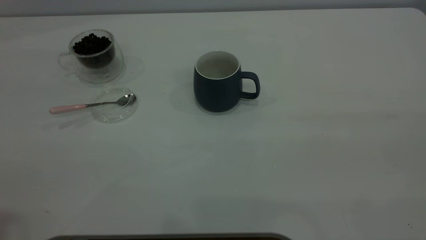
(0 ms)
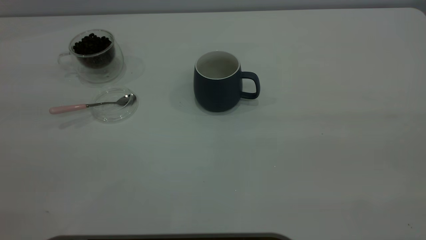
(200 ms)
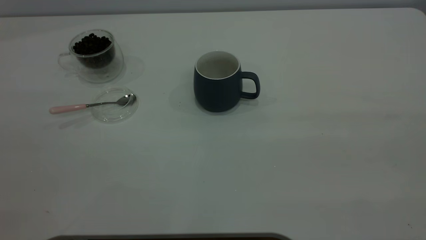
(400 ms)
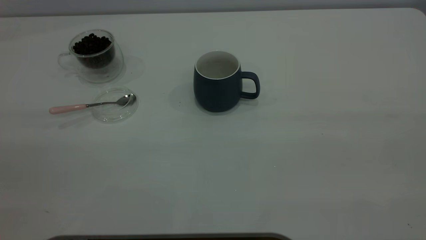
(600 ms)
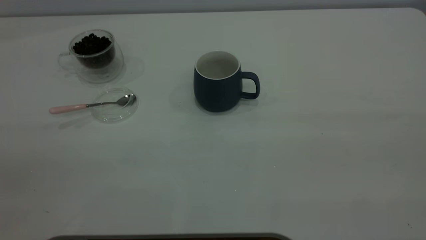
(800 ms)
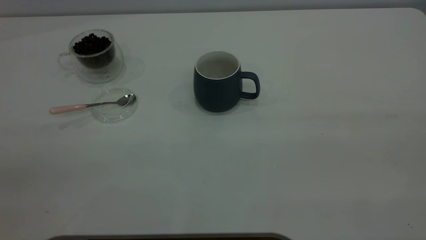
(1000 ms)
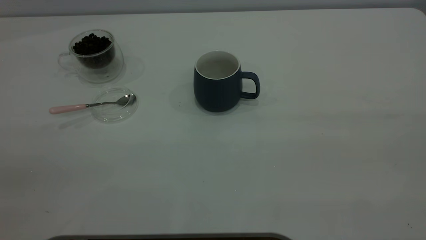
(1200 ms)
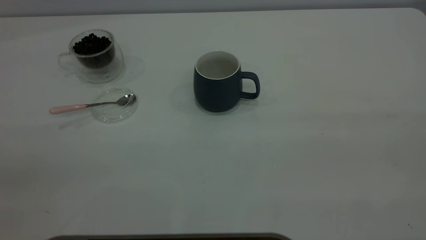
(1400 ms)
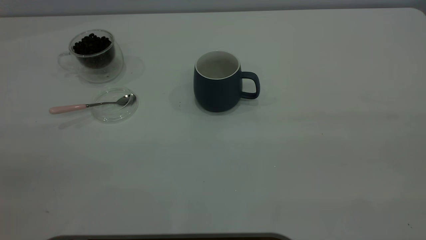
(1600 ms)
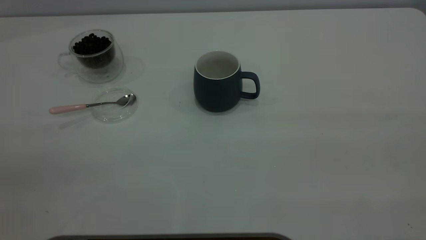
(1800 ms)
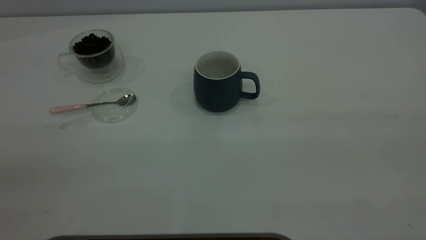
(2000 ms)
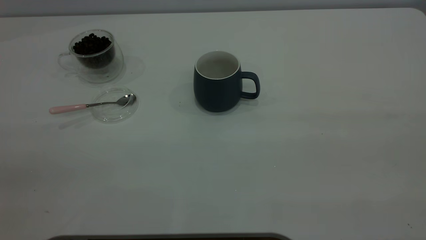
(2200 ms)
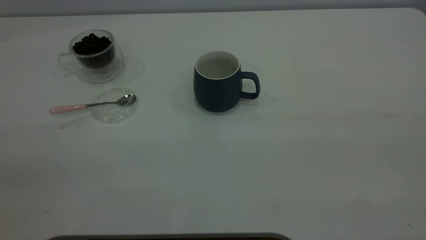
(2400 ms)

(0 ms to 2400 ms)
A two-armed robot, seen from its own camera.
Task of the whole recording: the right gripper place the grey cup in the center of the table, the left gripper take the pink spoon from the cup lid and scoop out the coffee beans from the coffee cup and put them into the grey cup, the left gripper put the spoon back into the cup lid.
1200 ms - 2400 ms: Both grippers stay about where they are.
